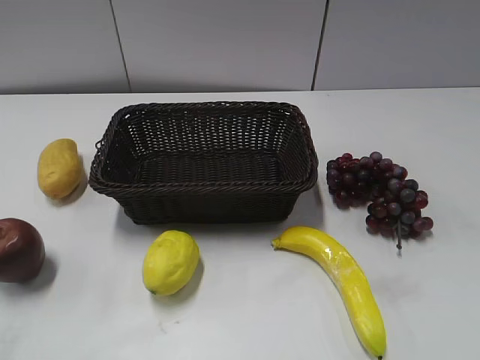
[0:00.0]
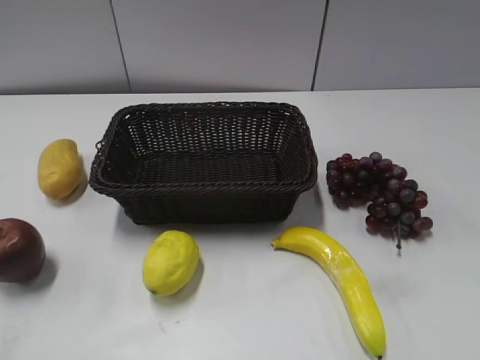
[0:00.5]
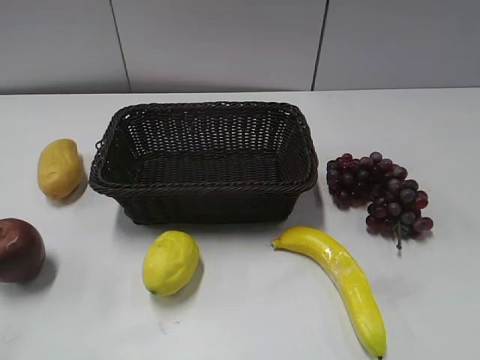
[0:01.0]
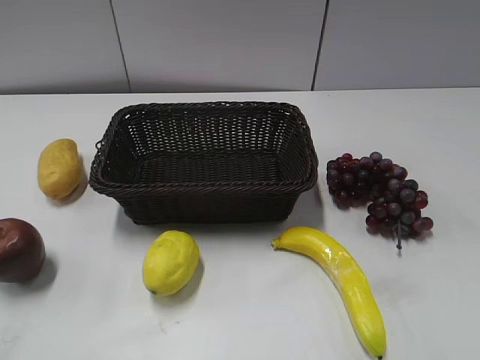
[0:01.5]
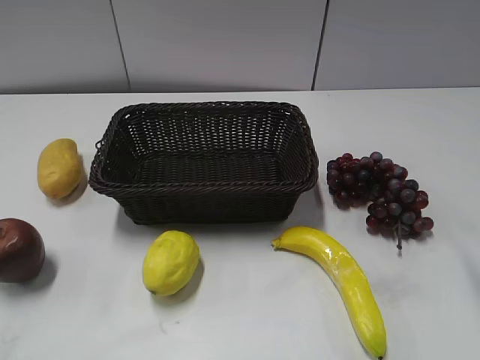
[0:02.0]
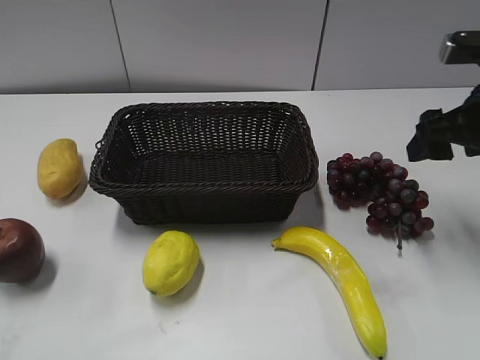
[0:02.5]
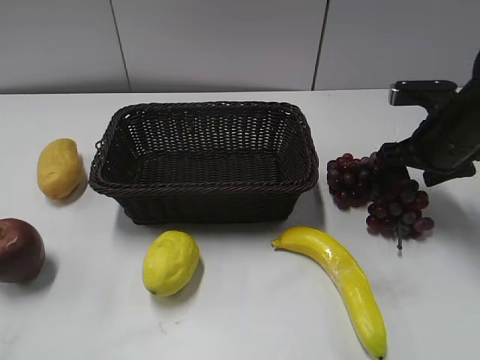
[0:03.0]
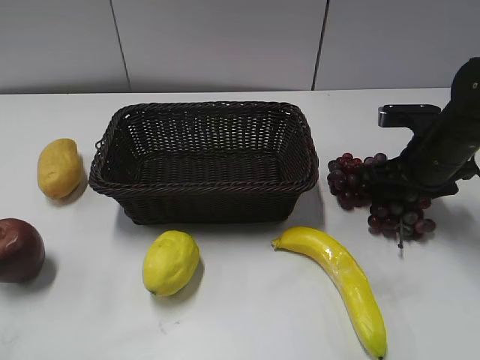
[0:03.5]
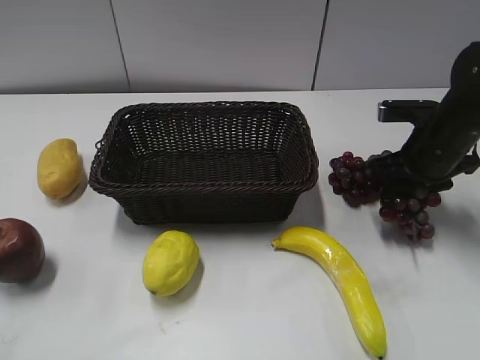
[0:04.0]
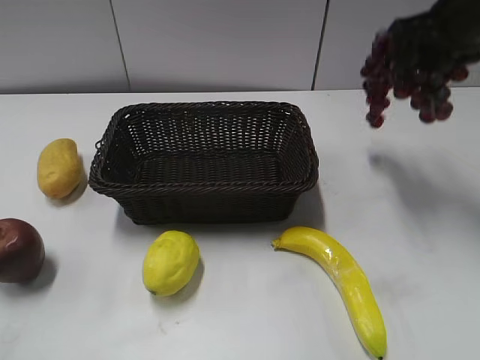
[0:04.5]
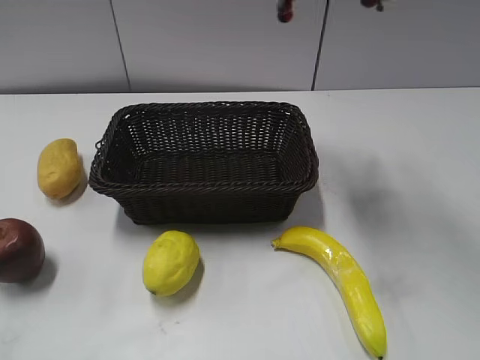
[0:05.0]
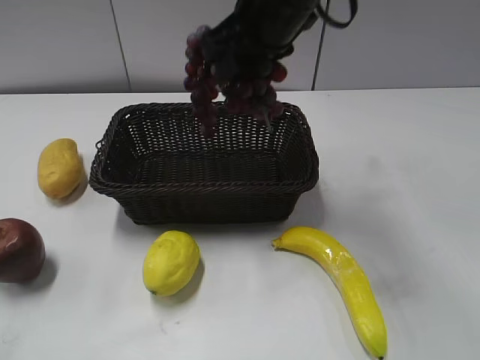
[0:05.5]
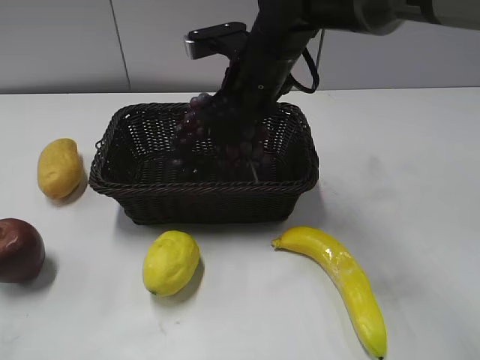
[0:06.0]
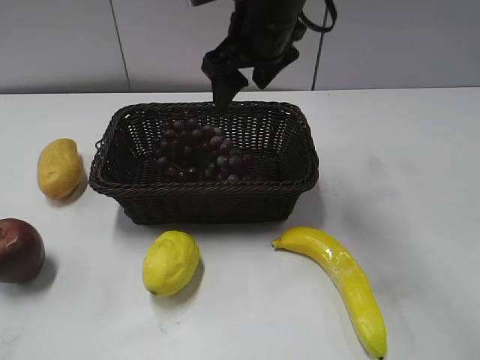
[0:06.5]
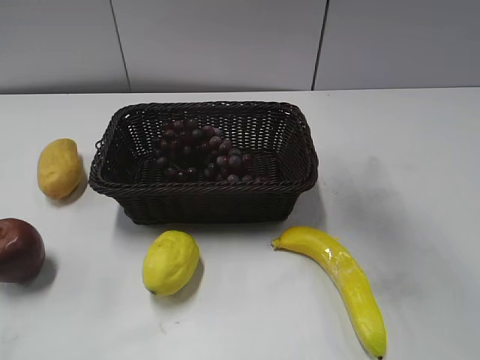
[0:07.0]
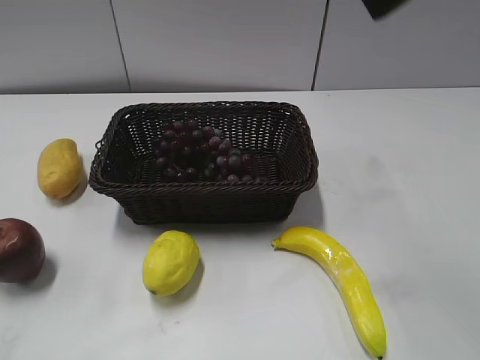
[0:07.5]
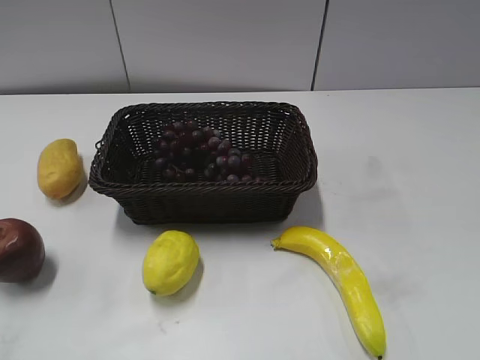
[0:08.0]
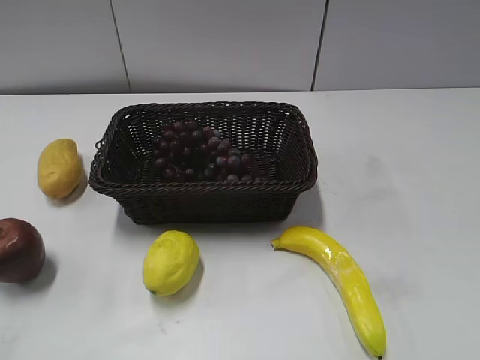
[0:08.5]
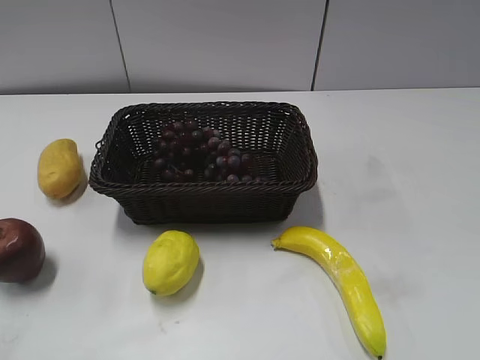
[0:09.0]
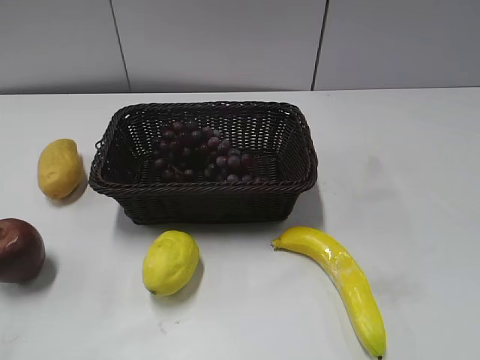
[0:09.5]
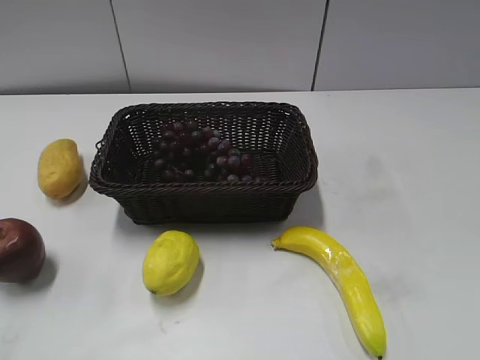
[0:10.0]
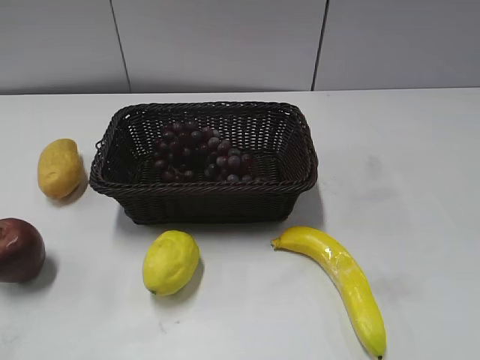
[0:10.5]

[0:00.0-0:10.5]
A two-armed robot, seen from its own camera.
Step, 0:02.0 to 0:04.0: Grasp the grape with right gripper.
Step, 0:04.5 to 0:06.0: Place the grape in the basket with right gripper.
0:02.0 to 0:04.0: The right gripper goes approximately 25 cm forward and downward, and closes up.
0:04.0 to 0:06.5: The right gripper goes up and down, about 30 cm each way, reversing 2 times, and opens up.
0:06.5 to 0:08.5: The right gripper heads backward and to the right, covering roughly 40 cm.
